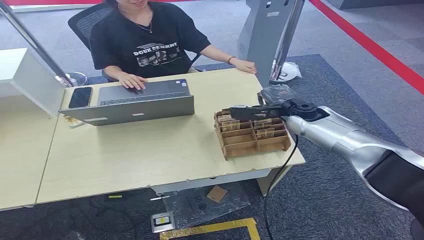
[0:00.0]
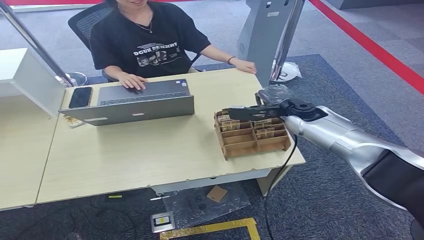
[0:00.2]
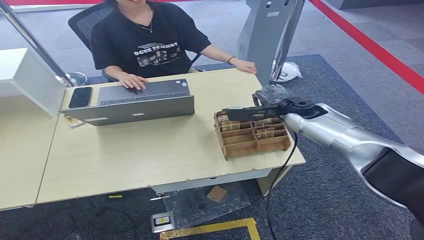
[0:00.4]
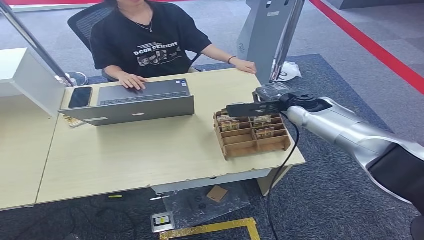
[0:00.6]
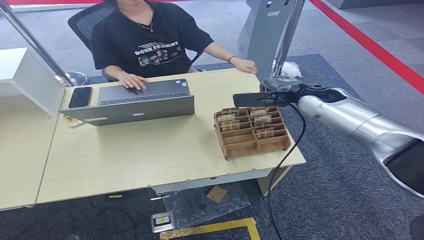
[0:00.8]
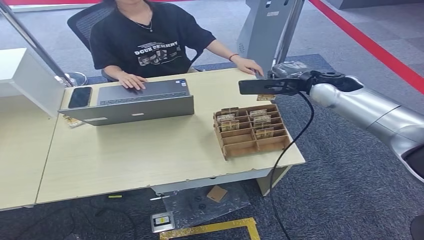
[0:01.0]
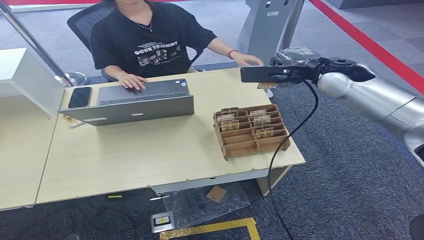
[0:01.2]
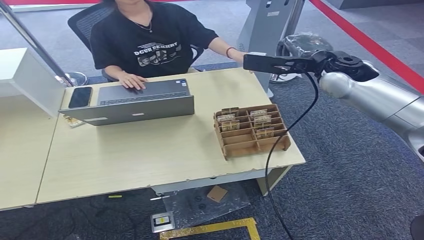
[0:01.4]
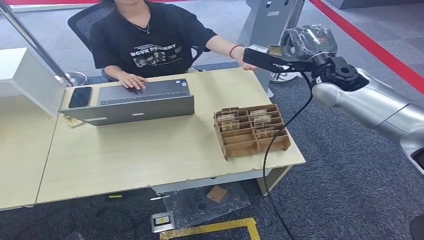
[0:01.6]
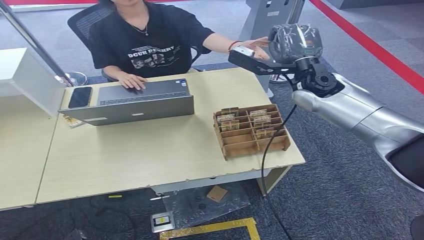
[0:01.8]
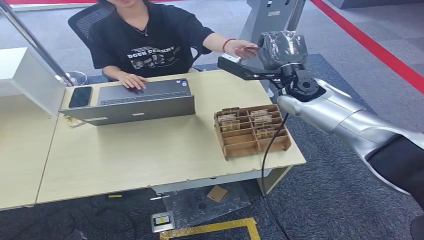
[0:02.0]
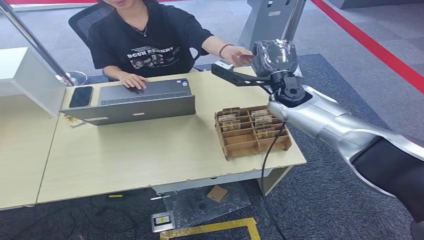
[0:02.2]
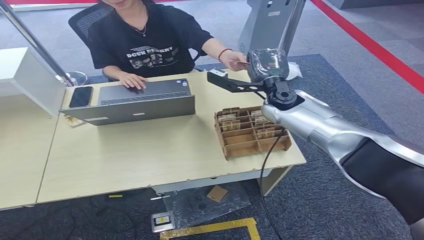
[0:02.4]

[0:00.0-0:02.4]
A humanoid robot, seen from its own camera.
Step, 0:00.0 to 0:01.2: Pick up the room card from the card holder.
Step, 0:01.4 to 0:02.4: Hand the room card to the target.
0:01.2 to 0:02.4: The right hand goes some 15 cm to the left and downward.

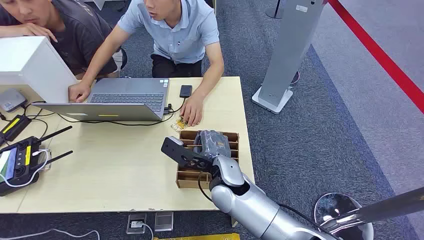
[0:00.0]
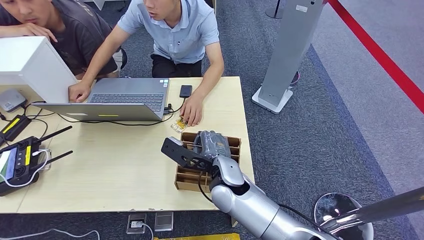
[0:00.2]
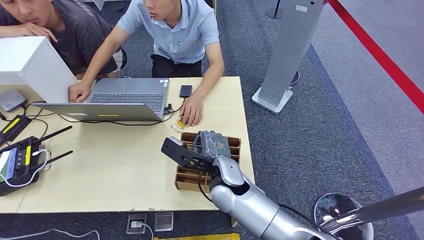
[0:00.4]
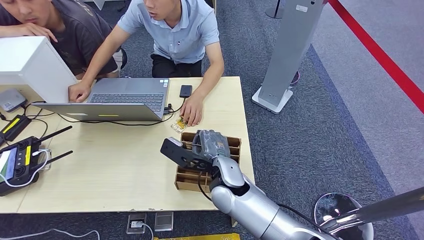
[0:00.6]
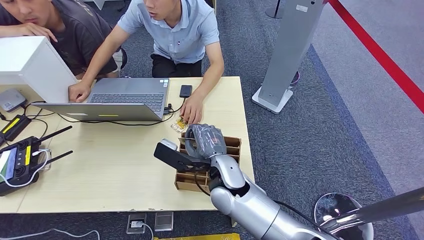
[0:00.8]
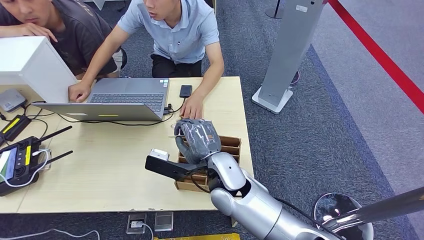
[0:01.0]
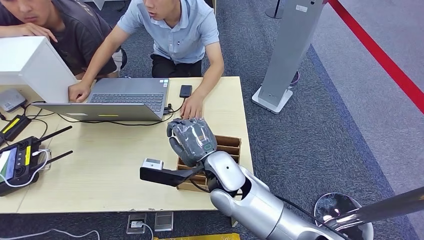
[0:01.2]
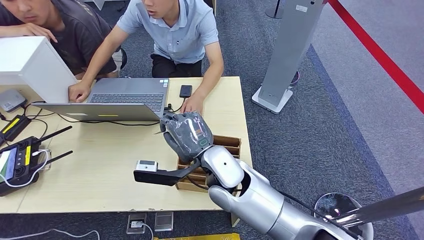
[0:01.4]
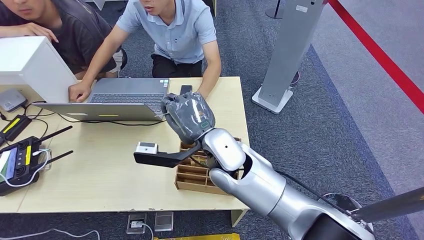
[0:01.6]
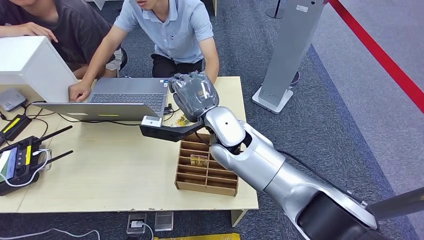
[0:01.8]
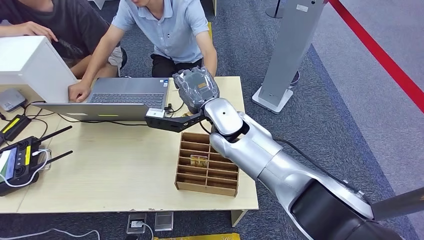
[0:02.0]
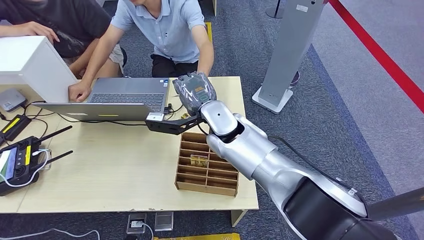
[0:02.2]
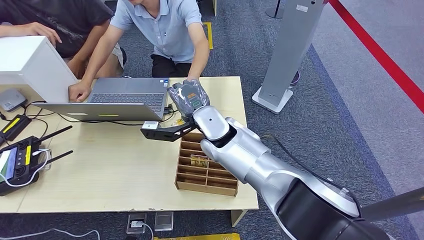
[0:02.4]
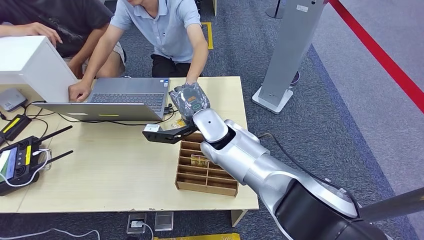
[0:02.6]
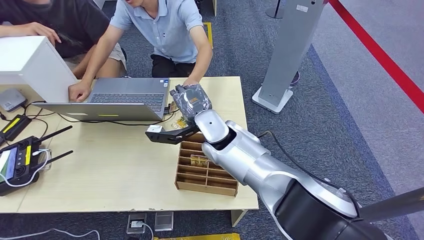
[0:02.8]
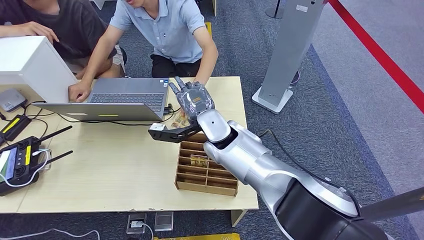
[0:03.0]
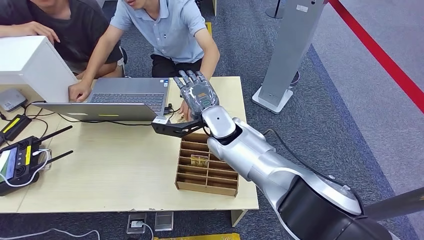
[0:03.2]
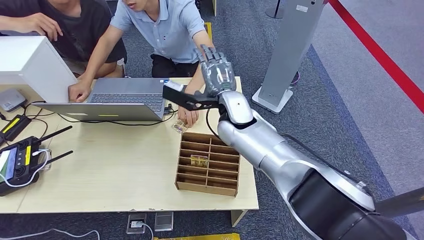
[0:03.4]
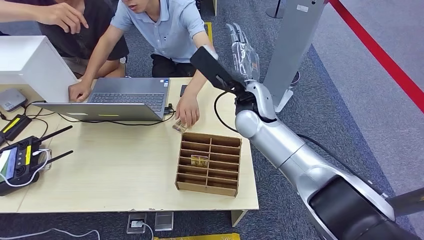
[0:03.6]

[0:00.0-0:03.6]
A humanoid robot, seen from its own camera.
Step, 0:00.0 to 0:01.0: Pick up the room card from the card holder.
Step, 0:01.8 to 0:03.6: Hand the room card to the target.
